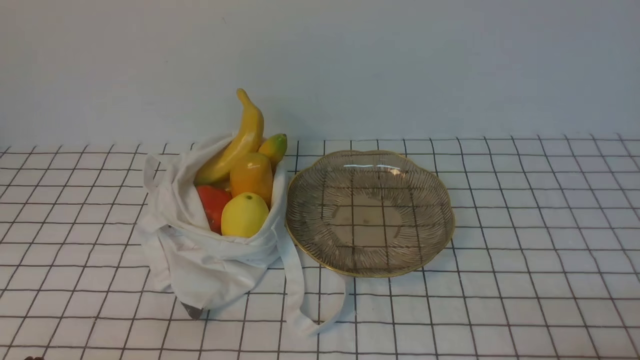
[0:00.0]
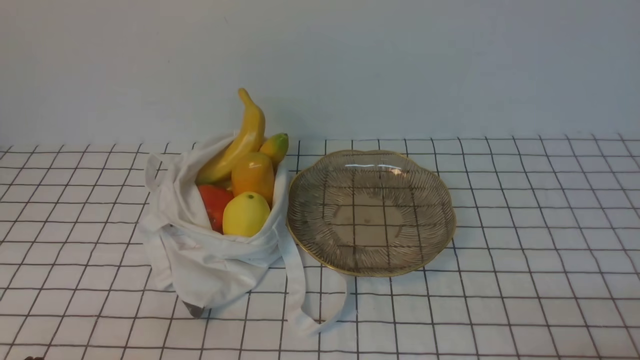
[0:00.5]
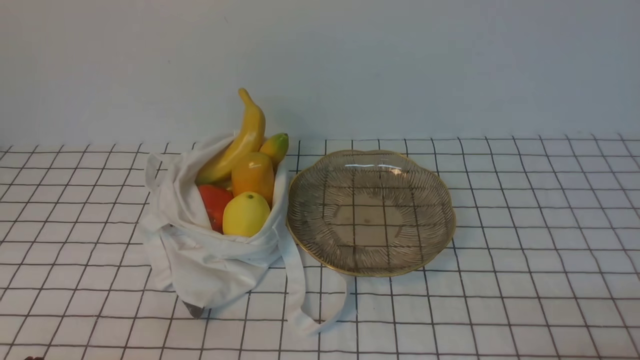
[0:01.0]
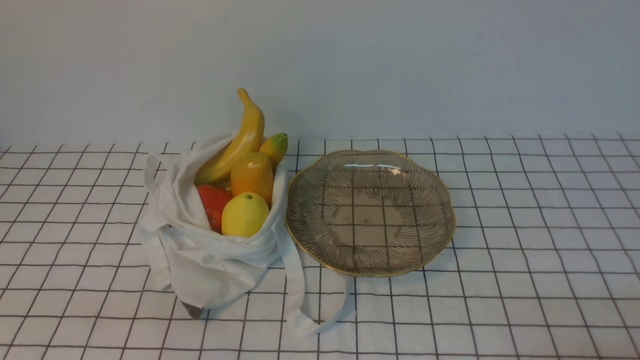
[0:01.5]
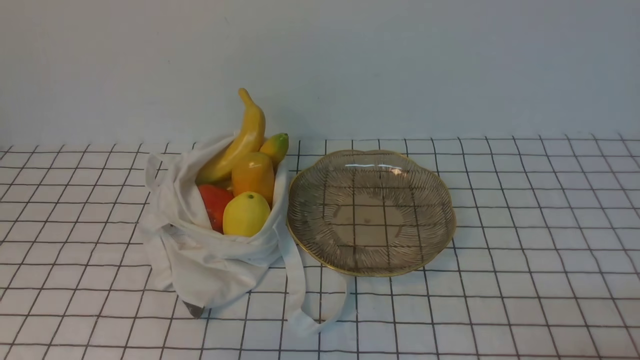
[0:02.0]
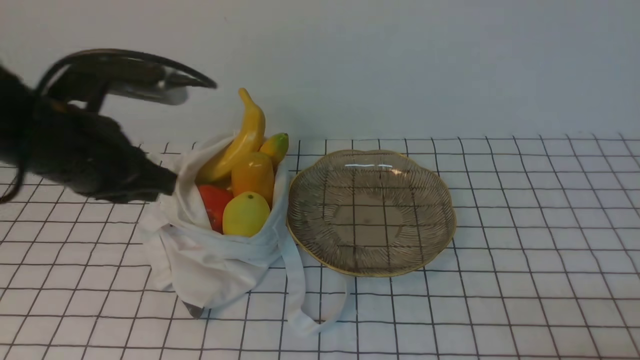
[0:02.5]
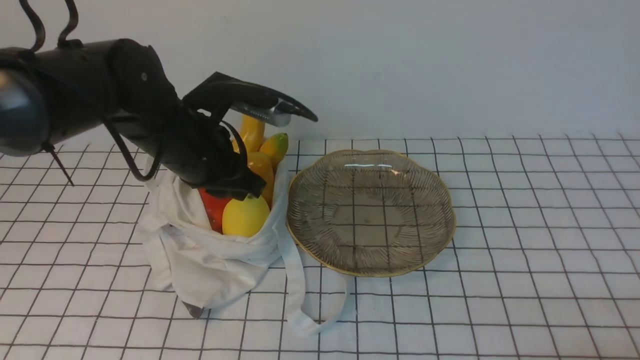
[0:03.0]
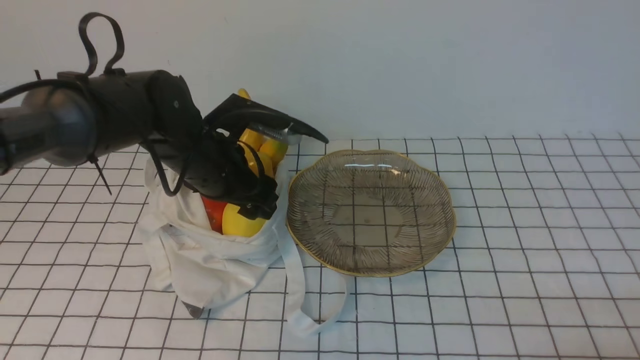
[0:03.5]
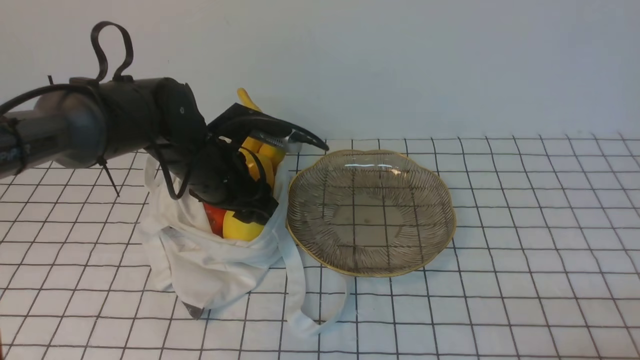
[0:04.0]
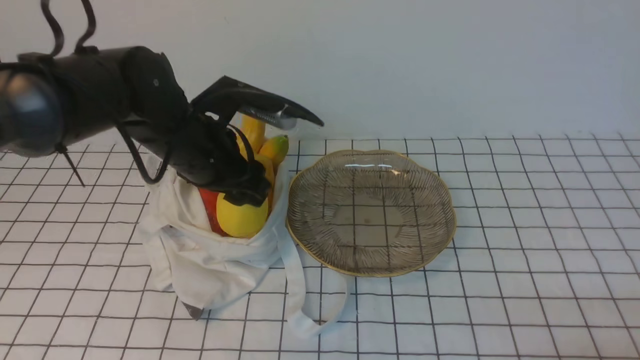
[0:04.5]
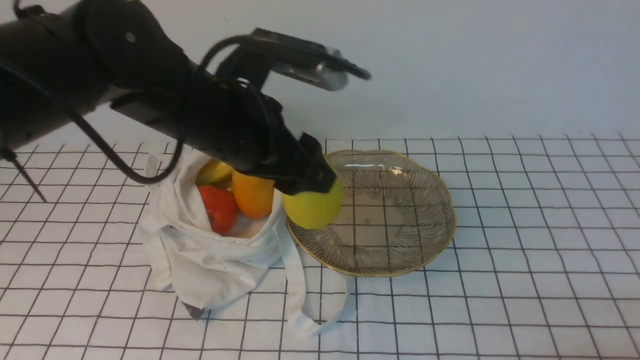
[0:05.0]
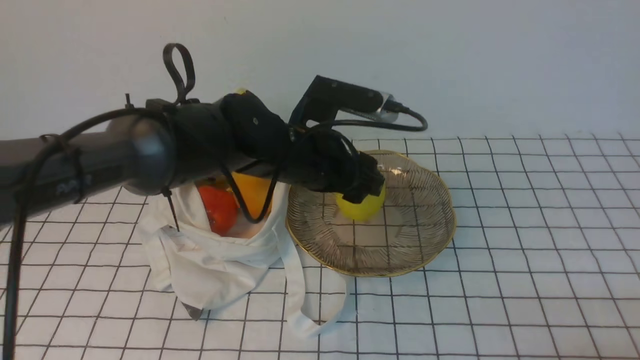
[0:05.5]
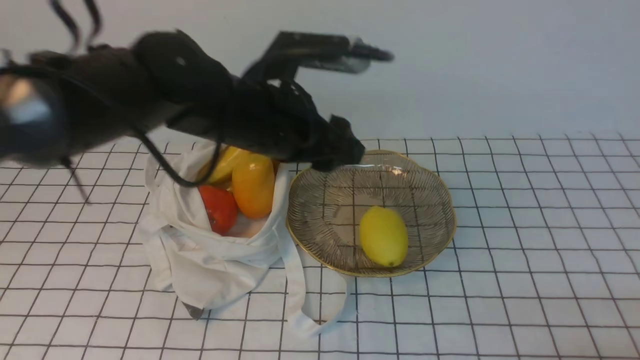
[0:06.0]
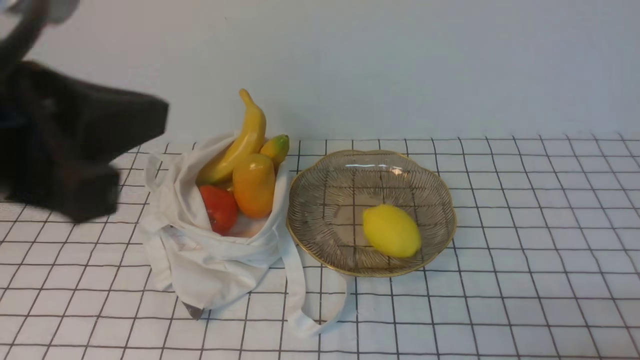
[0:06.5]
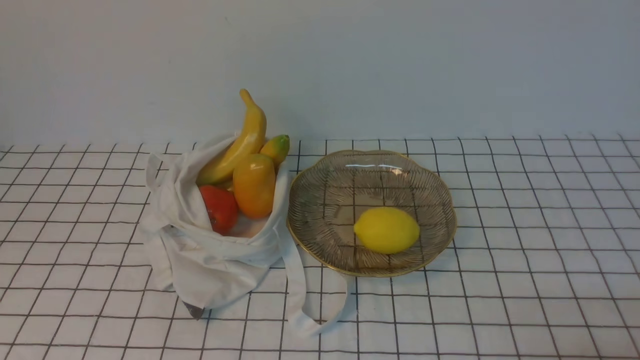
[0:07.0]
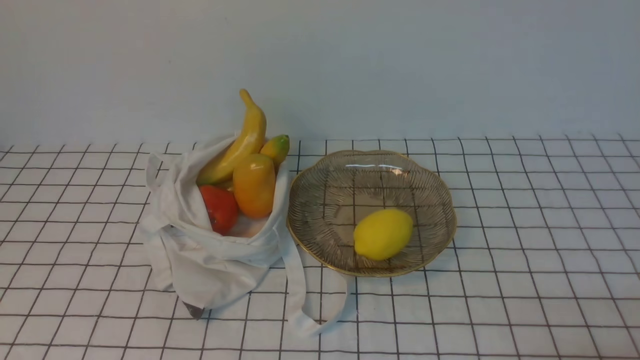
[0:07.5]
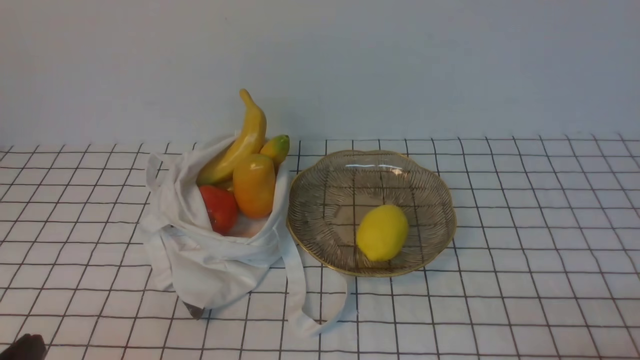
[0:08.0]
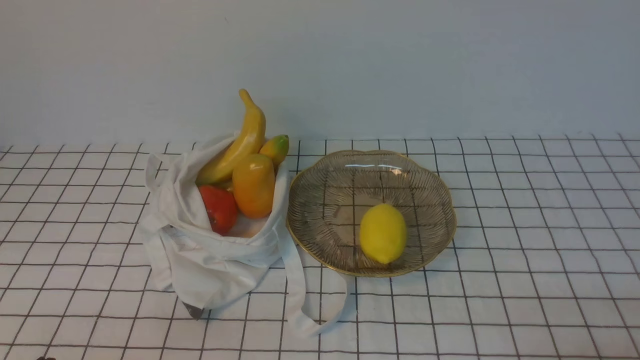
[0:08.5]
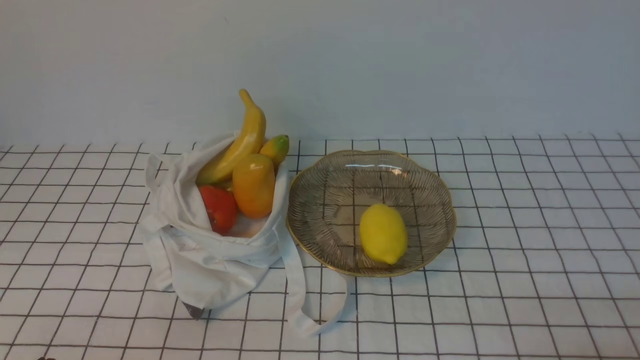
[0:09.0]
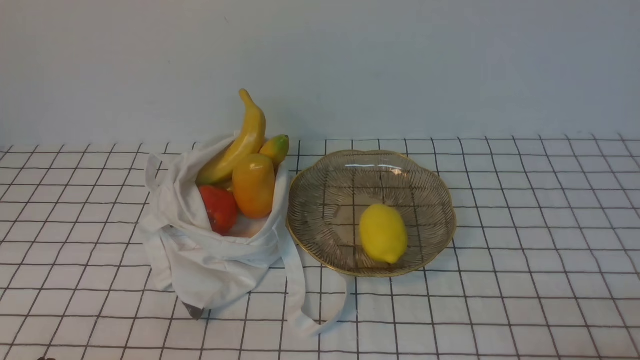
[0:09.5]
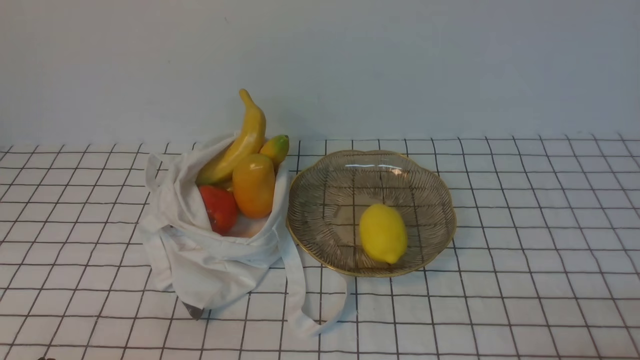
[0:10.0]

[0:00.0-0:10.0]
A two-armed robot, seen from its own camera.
Step, 0:00.0 to 0:04.0: use the left arm to grab a mango from the bag.
Step, 0:04.5 to 0:05.5: use the left arm to put the mango into the empty plate on the right.
0:02.0 to 0:04.0: The left gripper travels forward and to the right by some 30 cm, and opens its fingers.
0:04.0 to 0:06.0: The left gripper moves to the right and upward, some 10 cm.
0:06.0 to 0:08.0: The left gripper heads backward and to the left, covering roughly 35 cm, and closes its fingers.

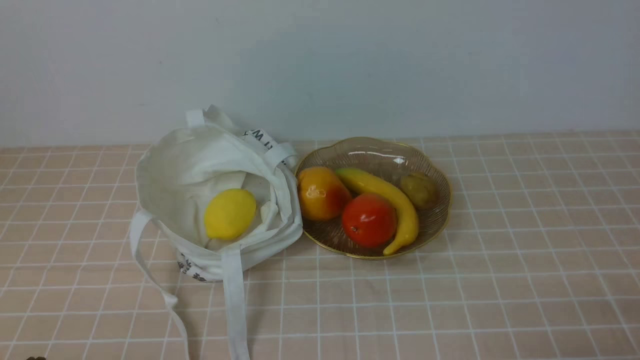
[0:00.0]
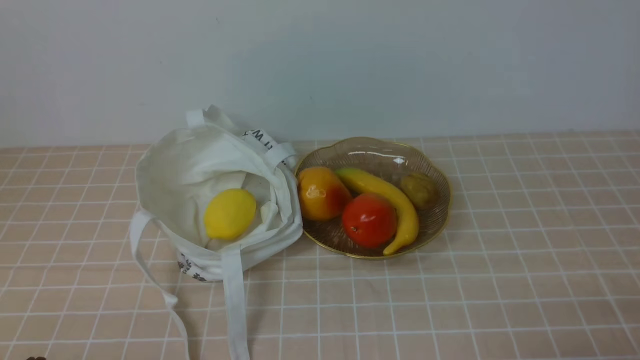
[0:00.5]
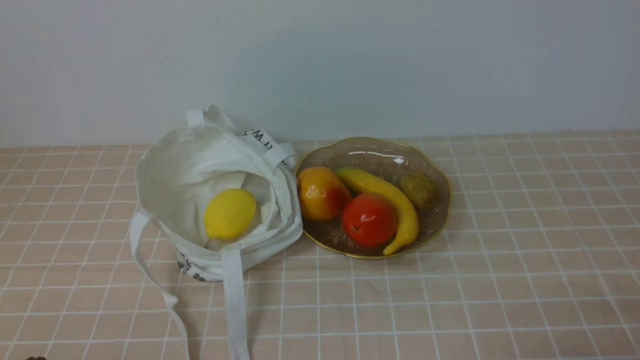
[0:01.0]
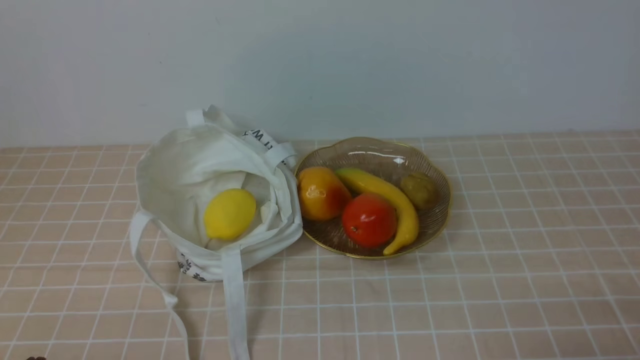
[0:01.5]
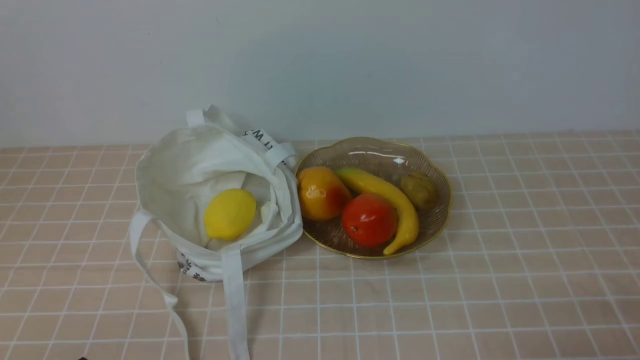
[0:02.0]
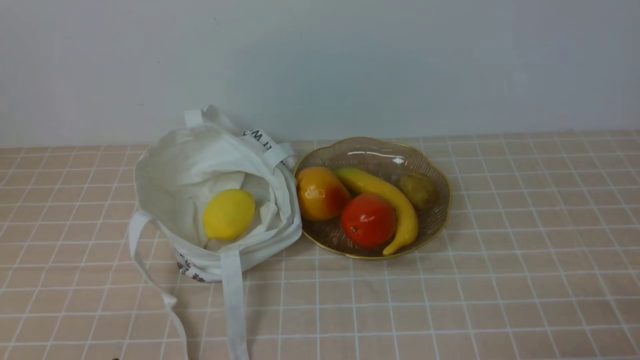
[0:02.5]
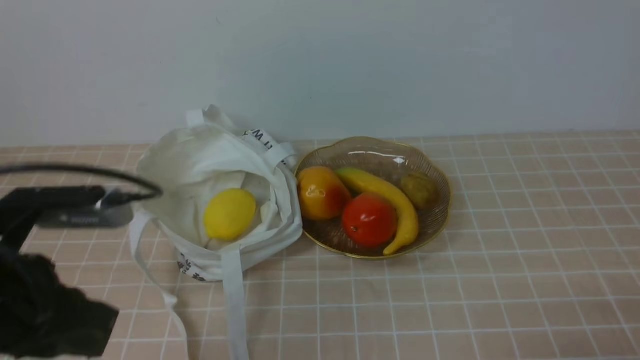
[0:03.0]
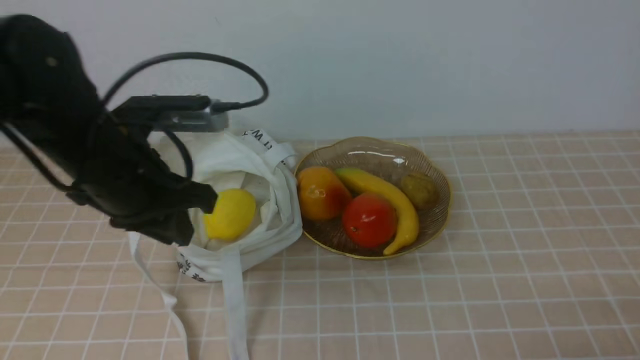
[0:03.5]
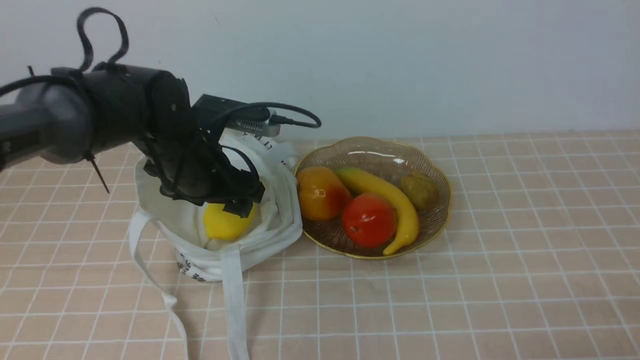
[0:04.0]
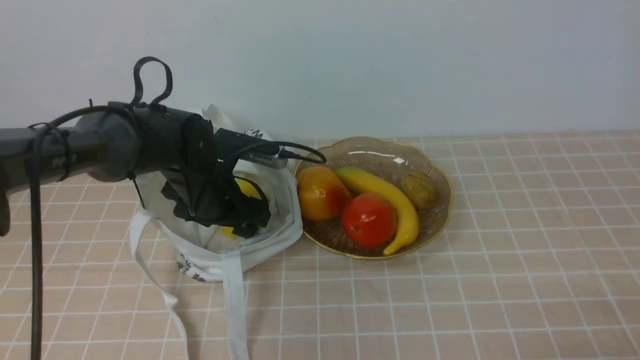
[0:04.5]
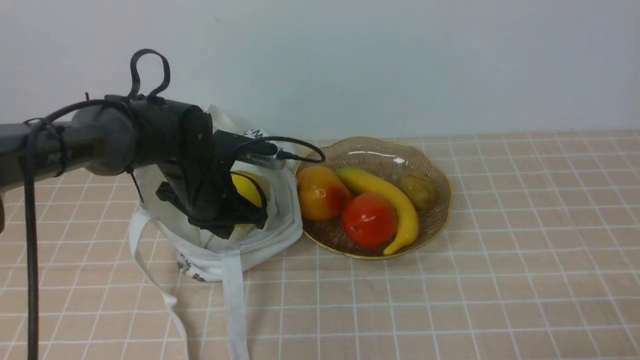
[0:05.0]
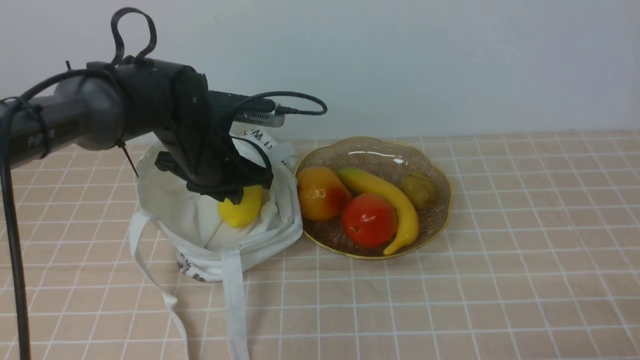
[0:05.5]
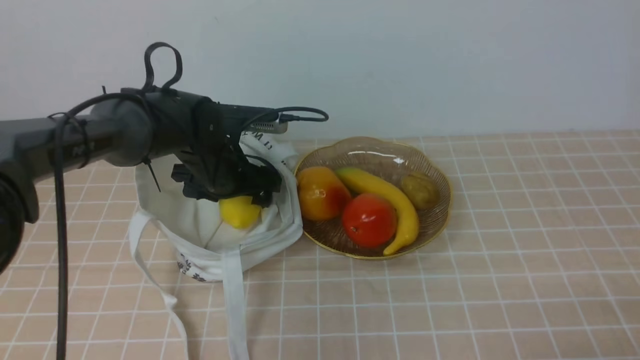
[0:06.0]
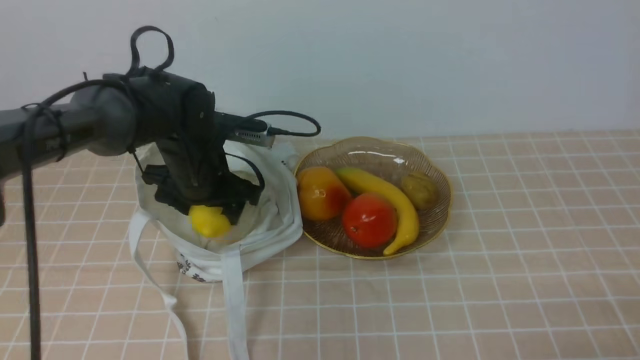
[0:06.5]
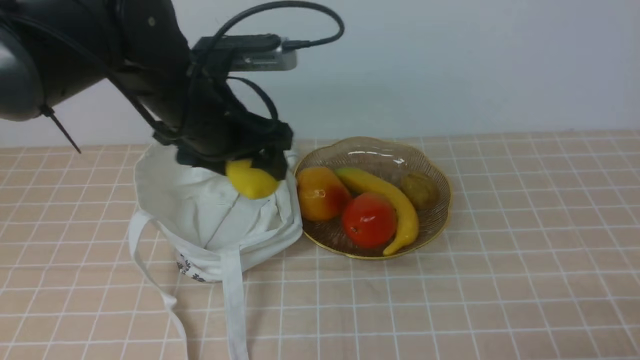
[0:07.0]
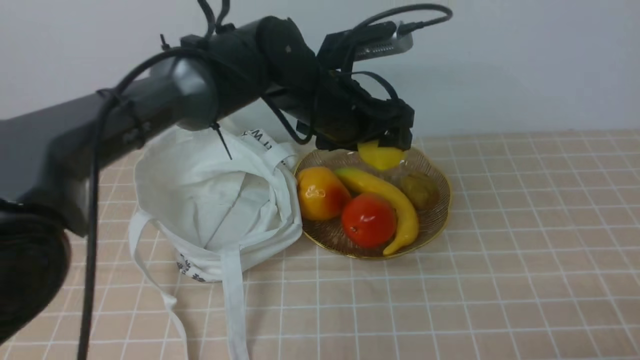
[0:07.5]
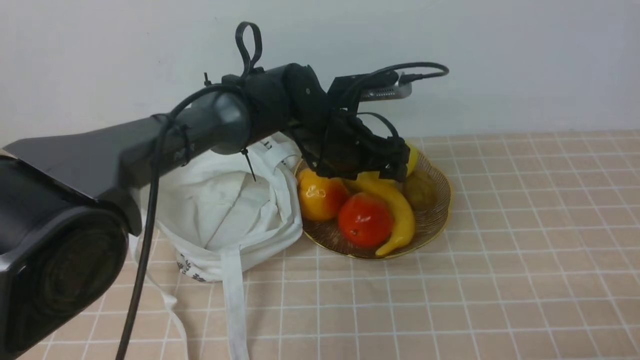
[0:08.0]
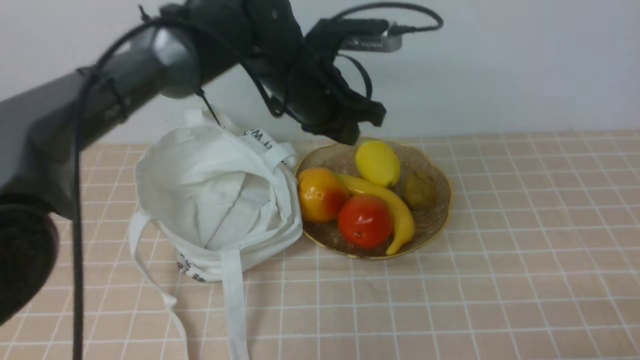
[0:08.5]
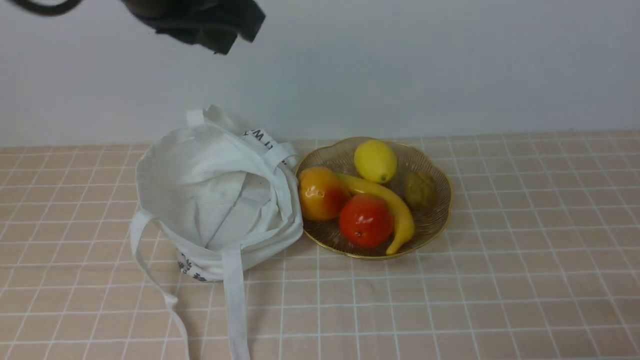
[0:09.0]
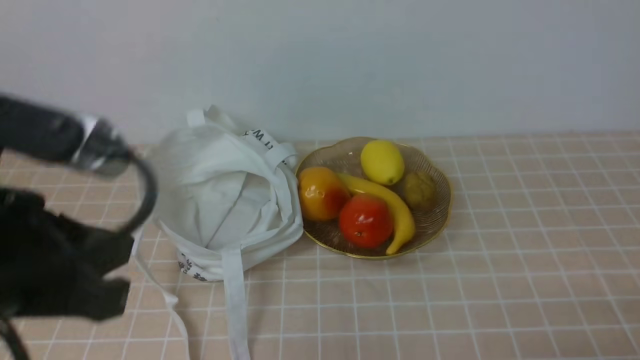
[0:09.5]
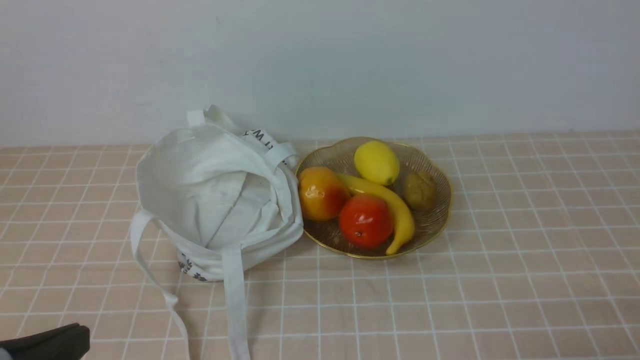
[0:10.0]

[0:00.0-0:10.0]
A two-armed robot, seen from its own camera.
Step, 0:00.0 to 0:06.5: use the left arm to grab a lemon from the bag.
Step, 0:07.0 to 0:08.0: use the left arm to put the lemon into the empty plate on the right.
0:02.0 to 0:04.0: The left gripper shifts roughly 30 cm forward, and opens up.
0:04.0 to 0:06.0: The left gripper shifts by some 5 cm, and closes, then opens again.
0:06.0 to 0:08.0: The left gripper shifts approximately 15 cm to the right.
0:08.0 to 0:10.0: The left gripper moves backward and to the left, roughly 40 cm, and closes.
